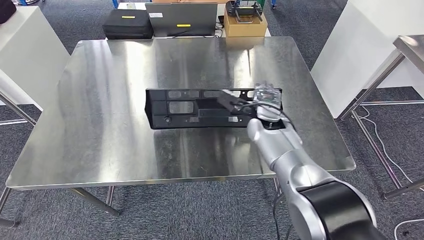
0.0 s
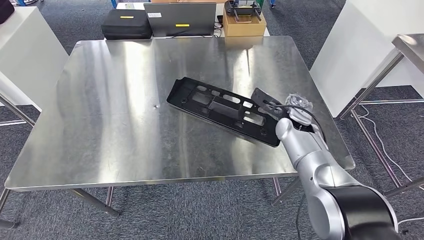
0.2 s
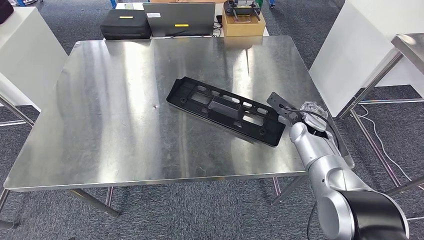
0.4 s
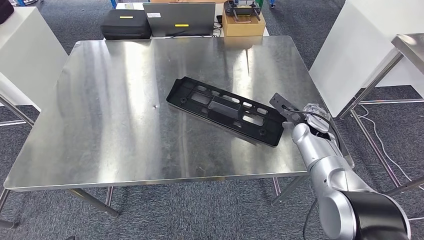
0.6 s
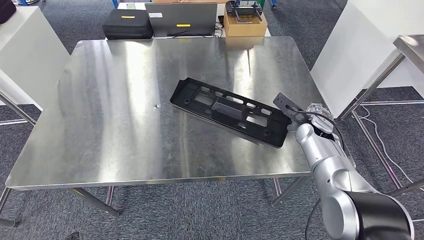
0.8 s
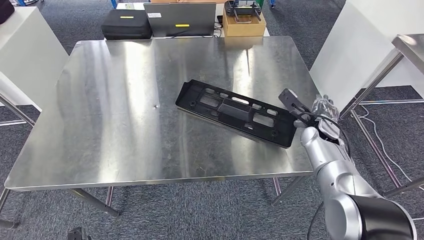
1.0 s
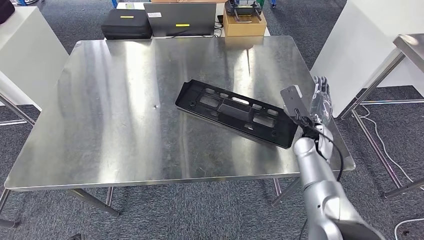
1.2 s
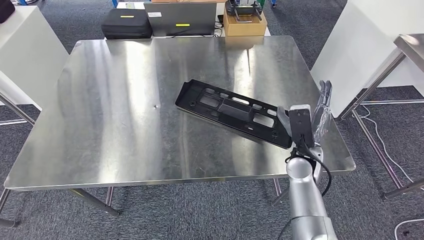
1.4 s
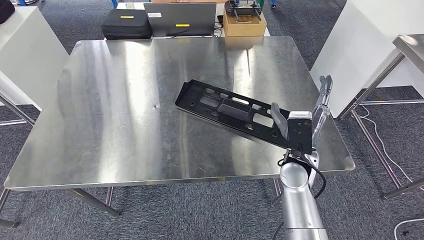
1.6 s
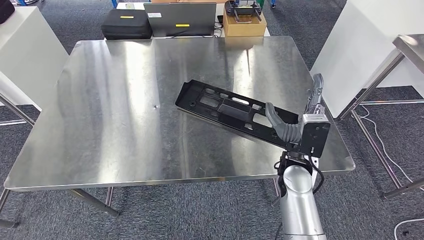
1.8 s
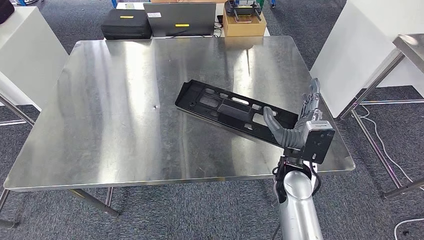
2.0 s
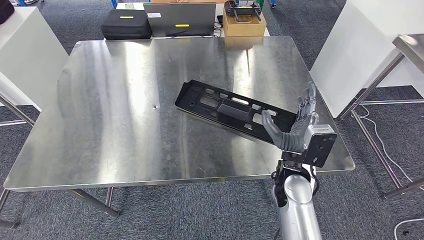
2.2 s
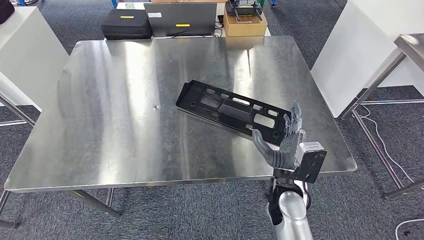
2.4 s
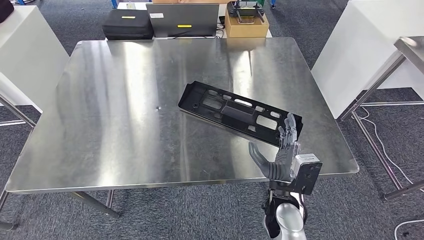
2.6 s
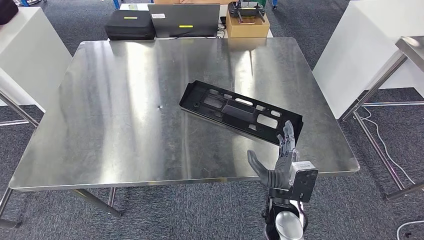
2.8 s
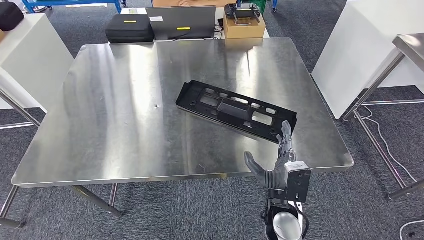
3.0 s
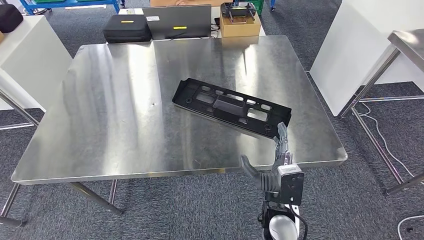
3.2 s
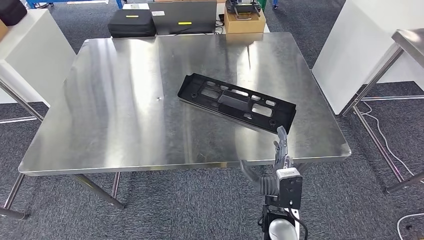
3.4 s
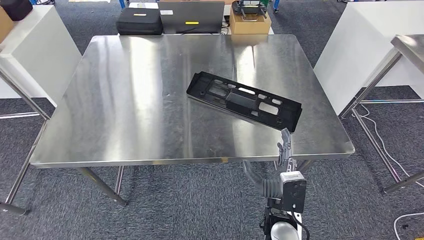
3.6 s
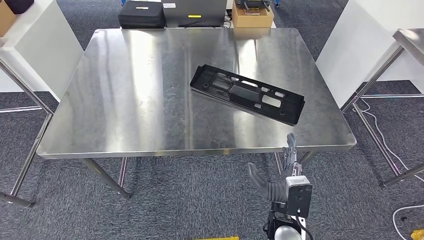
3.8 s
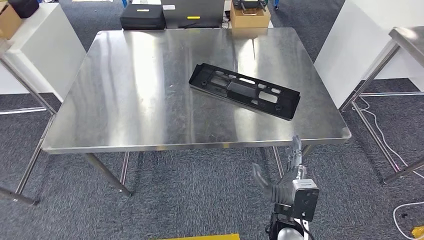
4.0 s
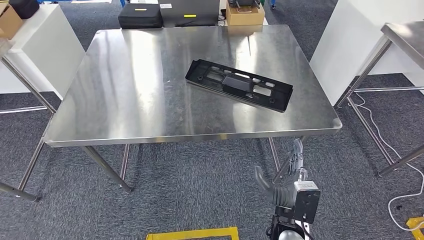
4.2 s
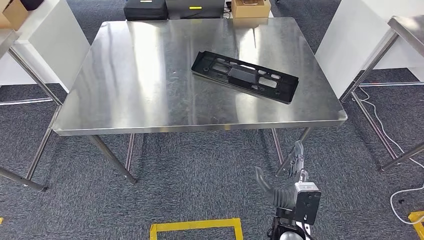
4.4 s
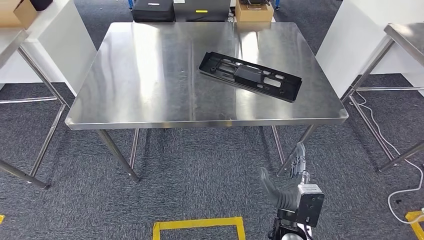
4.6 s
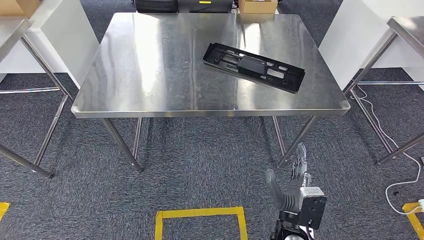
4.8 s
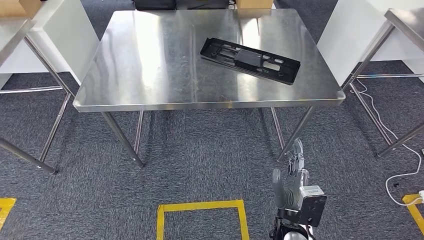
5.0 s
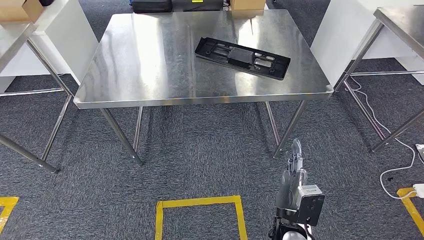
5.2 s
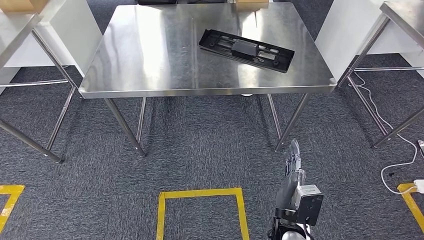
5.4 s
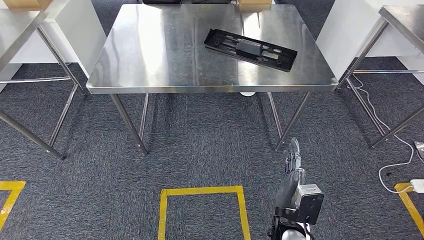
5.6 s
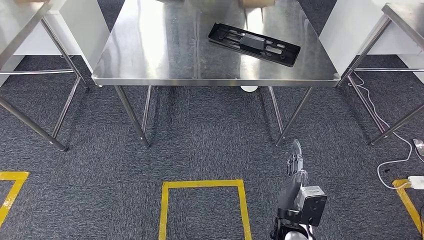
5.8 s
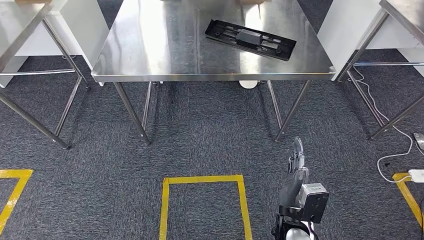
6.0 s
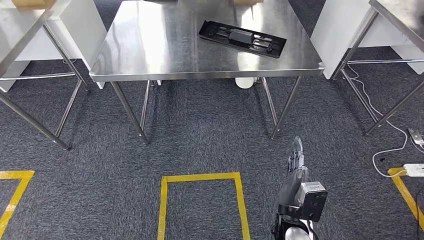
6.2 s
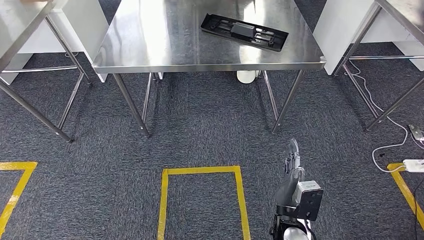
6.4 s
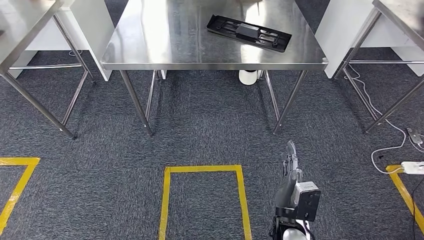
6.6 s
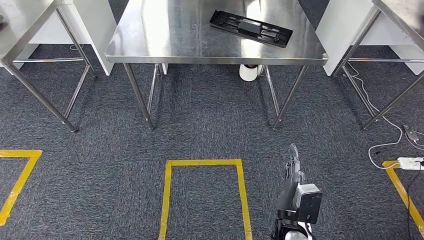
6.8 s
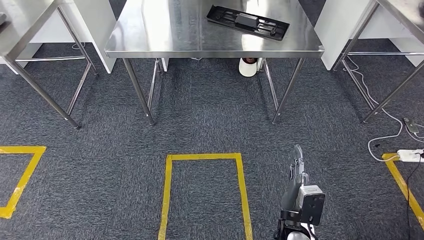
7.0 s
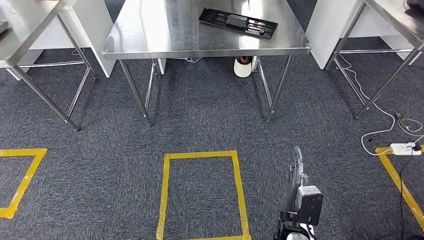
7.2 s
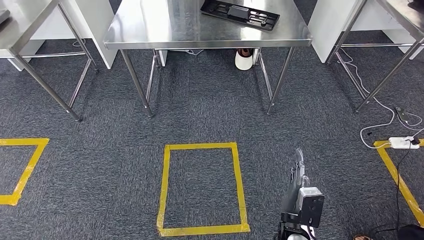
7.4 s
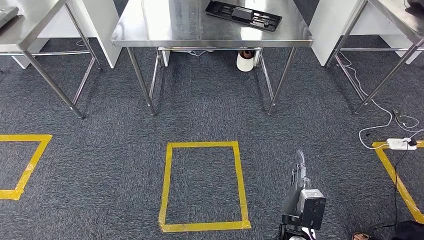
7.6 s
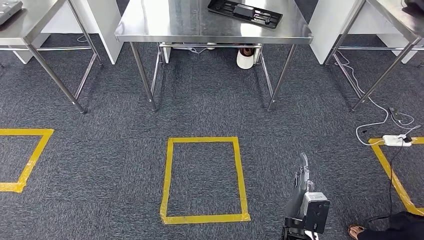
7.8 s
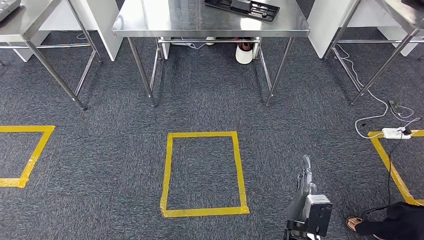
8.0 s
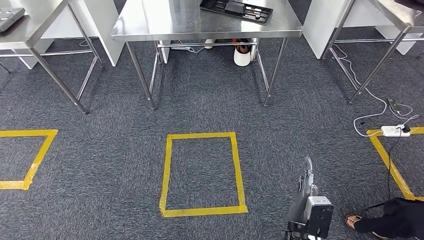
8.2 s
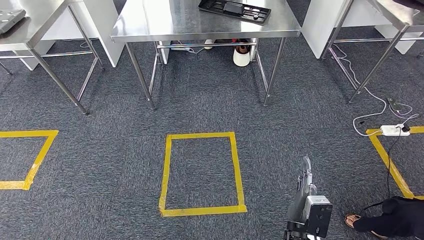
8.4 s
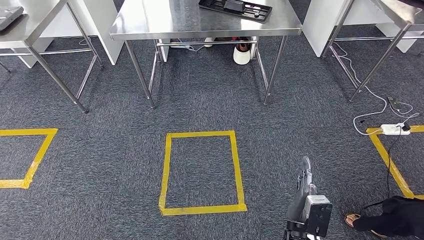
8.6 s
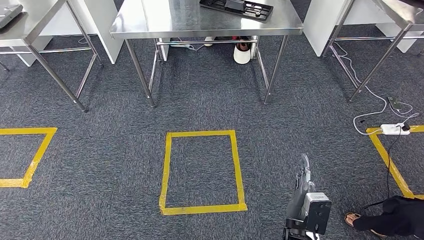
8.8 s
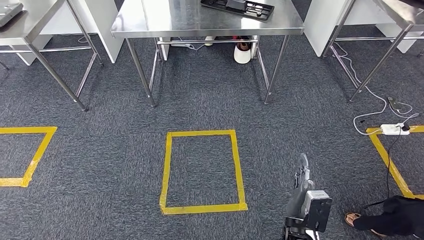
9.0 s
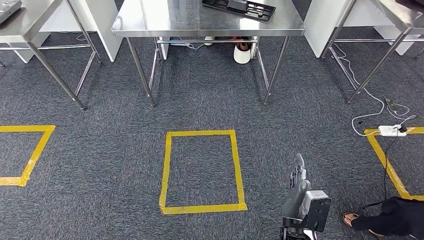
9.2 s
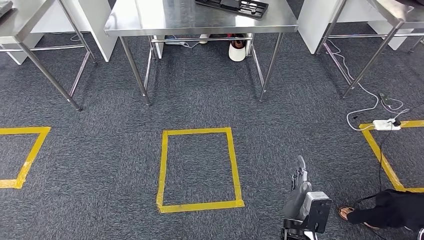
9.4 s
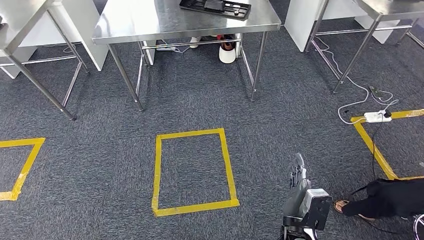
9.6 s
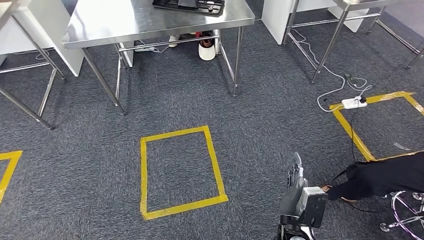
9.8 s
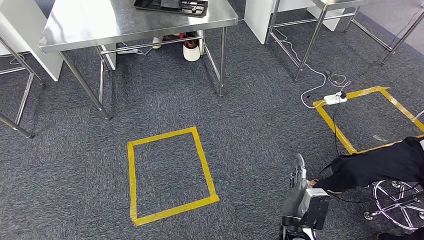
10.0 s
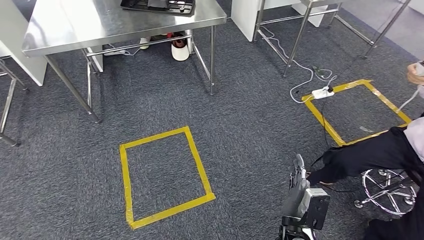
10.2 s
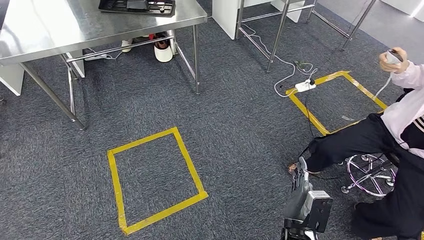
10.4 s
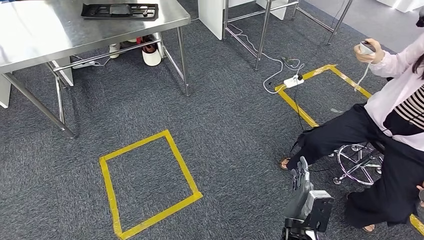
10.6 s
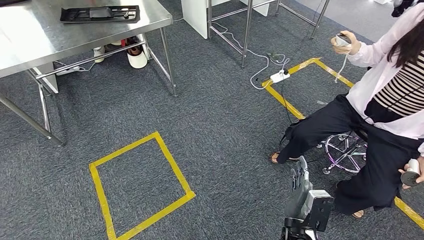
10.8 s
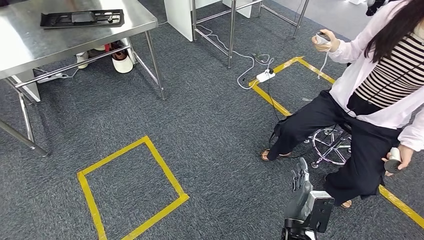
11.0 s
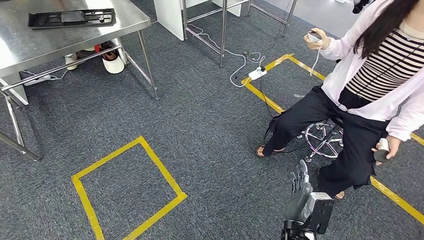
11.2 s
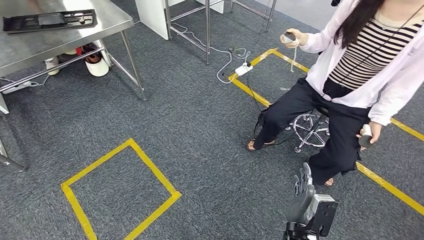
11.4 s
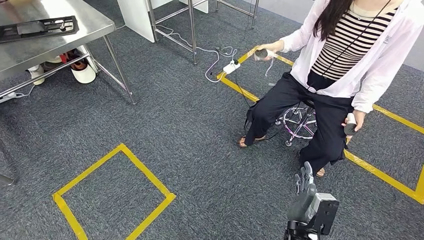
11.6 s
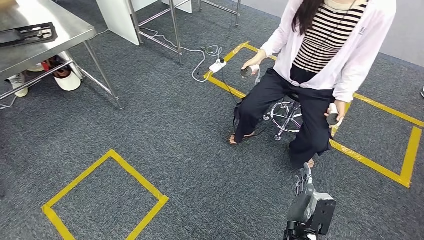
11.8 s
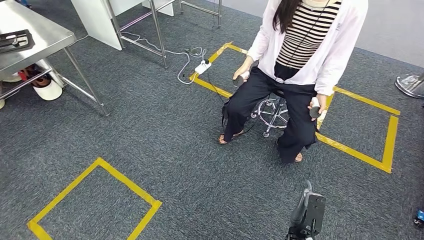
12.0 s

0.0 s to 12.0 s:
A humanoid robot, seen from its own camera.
Step, 0.0 to 6.8 s: Insert the large material into the corresponding slot on the workbench.
0.0 to 1.6 s: The right hand travels backward and to the right by approximately 10 cm.

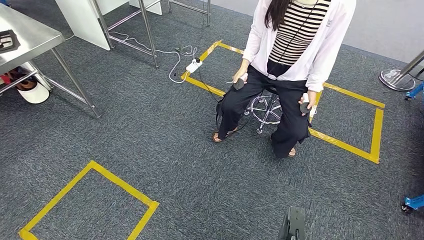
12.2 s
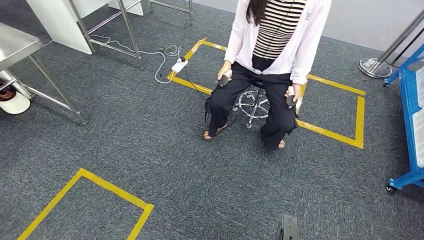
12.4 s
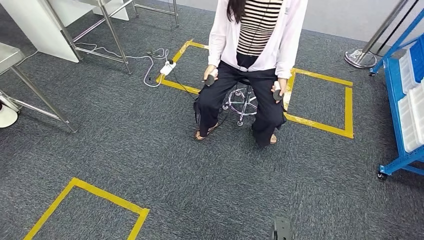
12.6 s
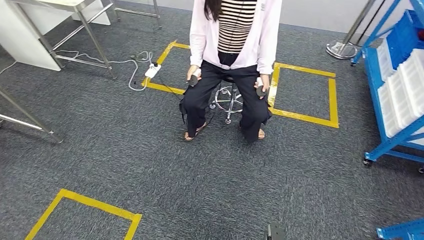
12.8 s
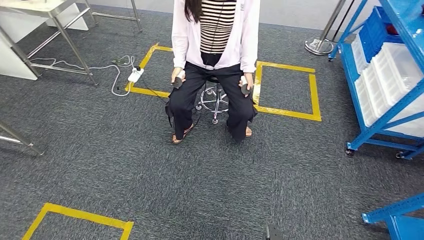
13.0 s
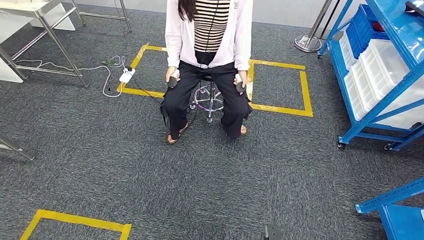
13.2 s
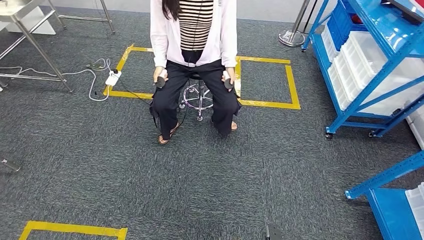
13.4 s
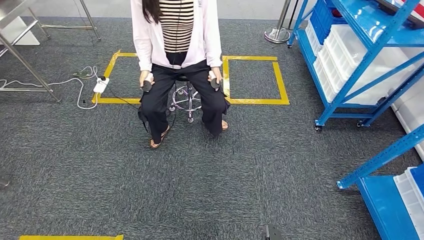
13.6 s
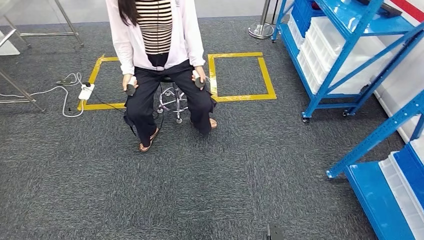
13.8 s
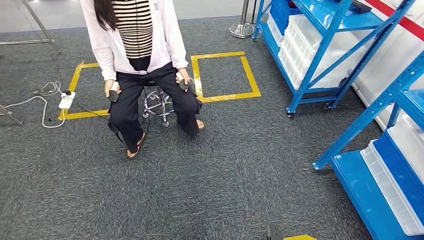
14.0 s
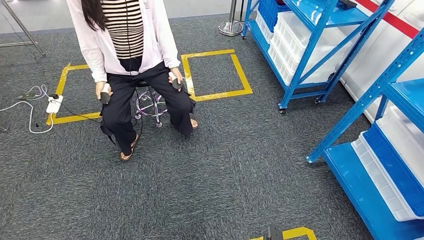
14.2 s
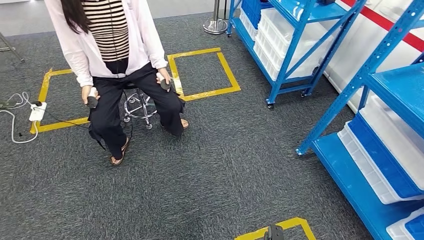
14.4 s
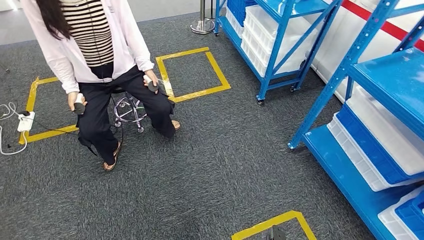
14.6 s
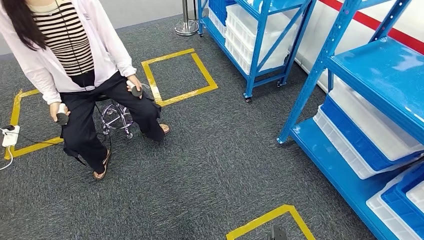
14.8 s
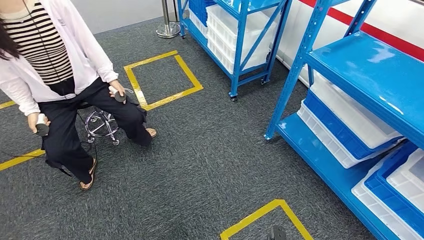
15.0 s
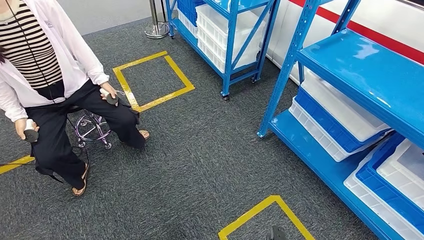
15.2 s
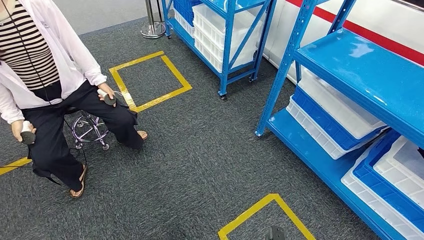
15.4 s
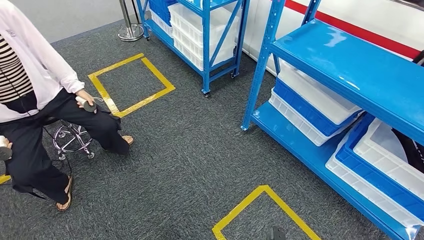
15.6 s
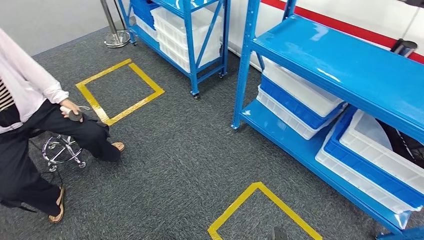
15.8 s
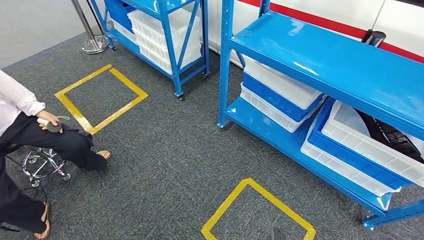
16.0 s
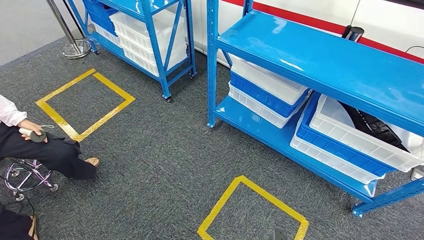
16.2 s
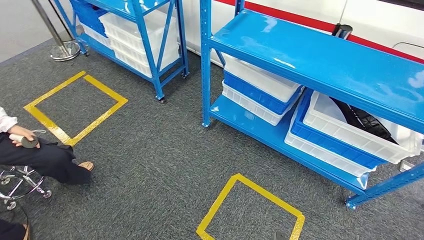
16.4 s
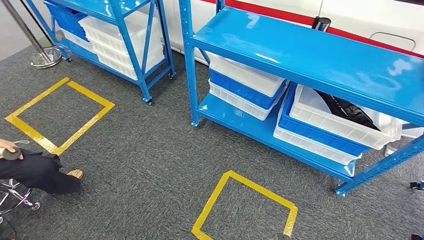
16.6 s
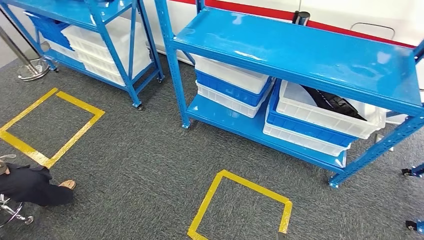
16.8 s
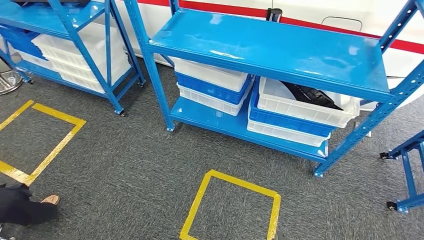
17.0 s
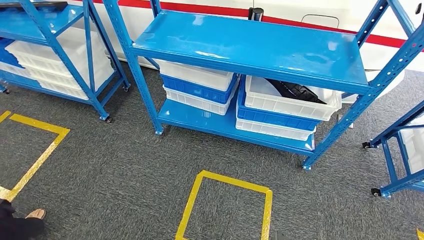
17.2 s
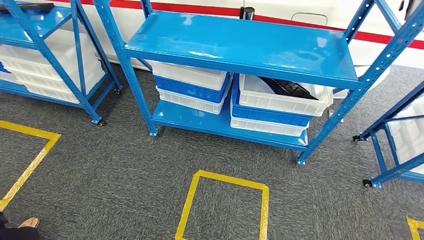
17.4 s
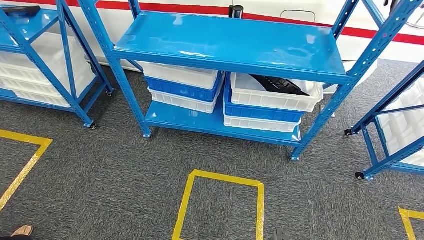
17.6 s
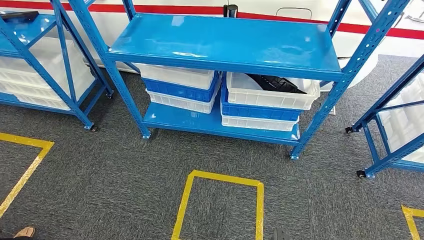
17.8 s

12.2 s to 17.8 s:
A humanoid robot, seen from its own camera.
Step, 12.2 to 17.6 s: Move to the initial position of the shelf.
